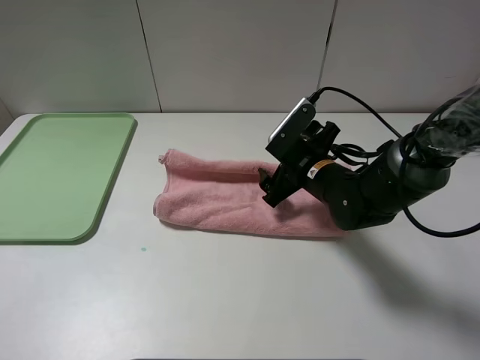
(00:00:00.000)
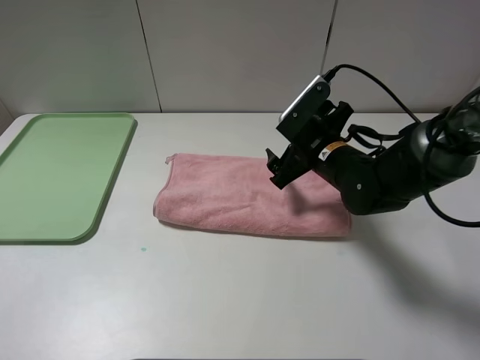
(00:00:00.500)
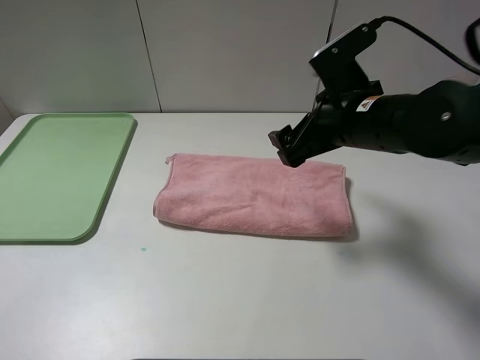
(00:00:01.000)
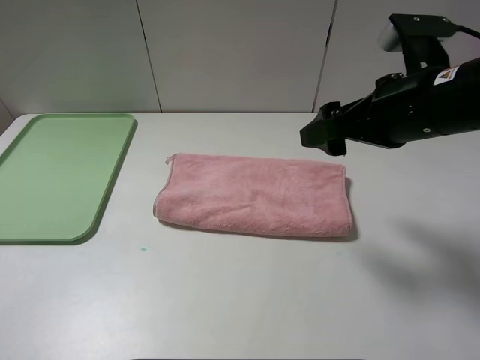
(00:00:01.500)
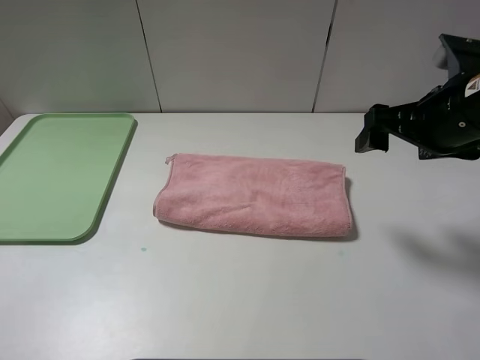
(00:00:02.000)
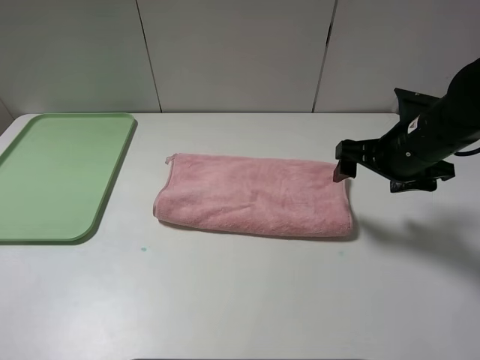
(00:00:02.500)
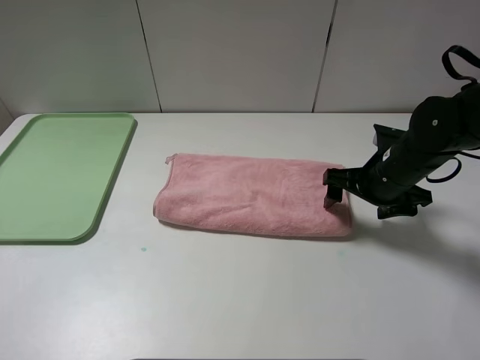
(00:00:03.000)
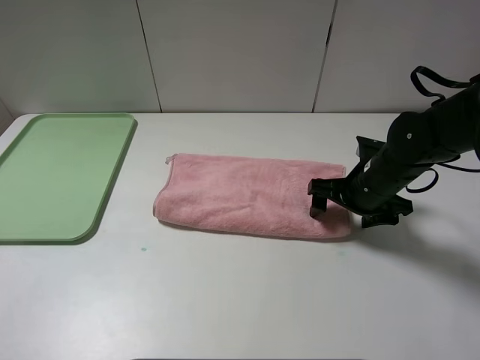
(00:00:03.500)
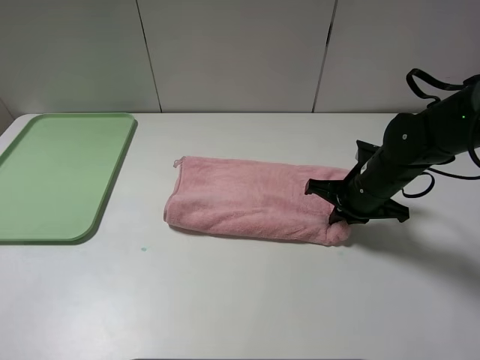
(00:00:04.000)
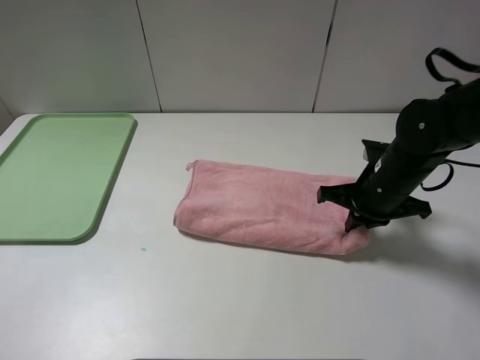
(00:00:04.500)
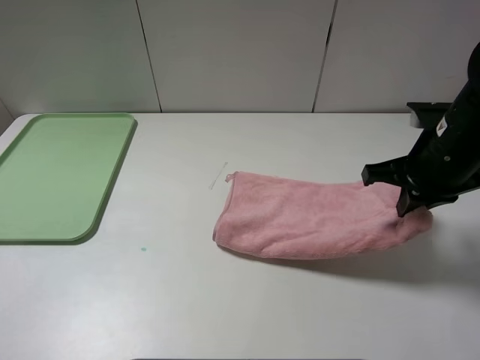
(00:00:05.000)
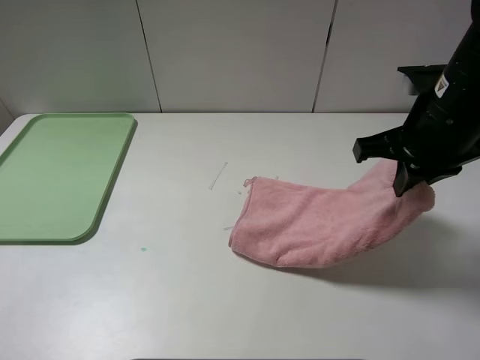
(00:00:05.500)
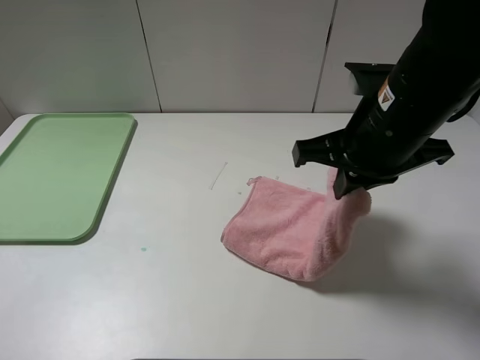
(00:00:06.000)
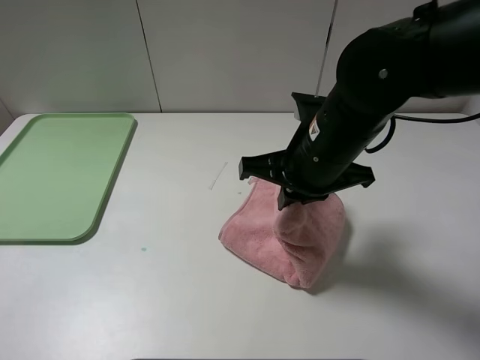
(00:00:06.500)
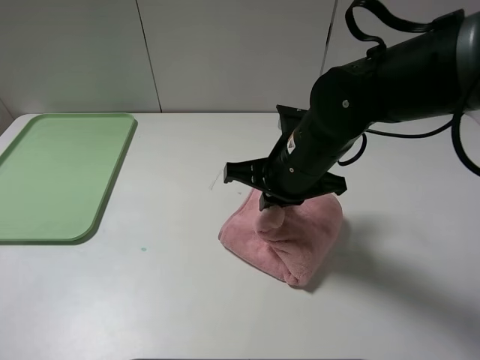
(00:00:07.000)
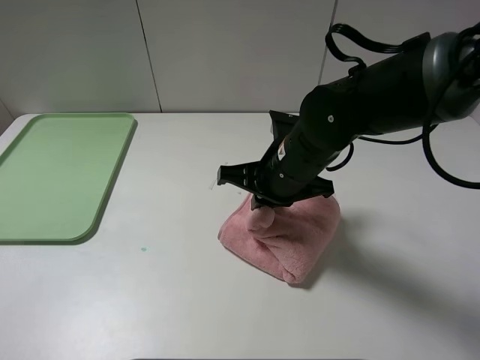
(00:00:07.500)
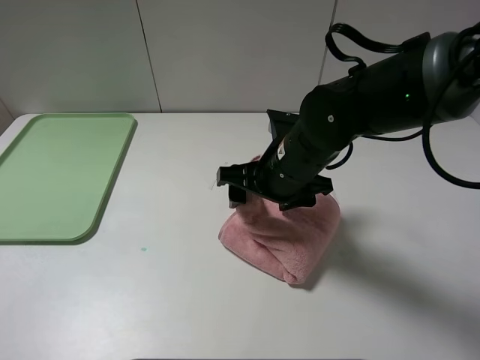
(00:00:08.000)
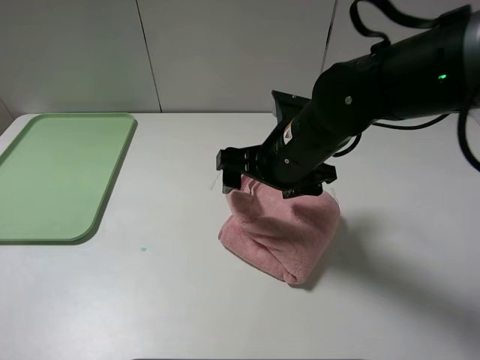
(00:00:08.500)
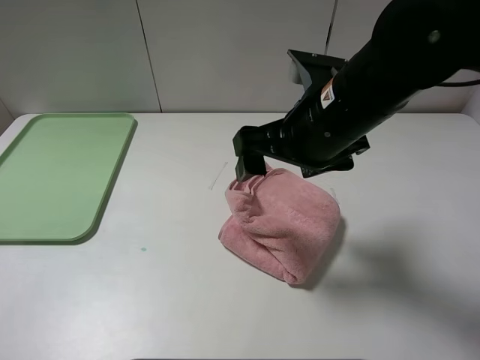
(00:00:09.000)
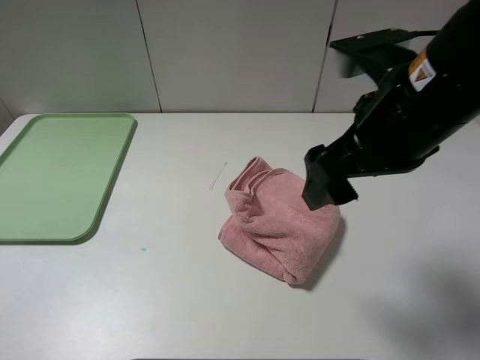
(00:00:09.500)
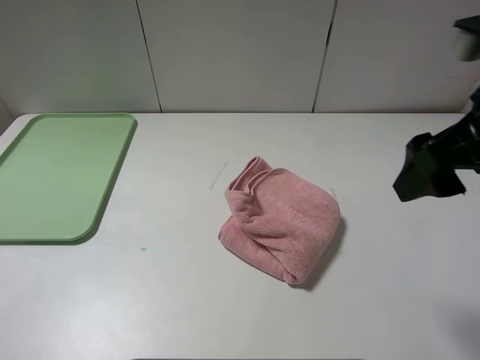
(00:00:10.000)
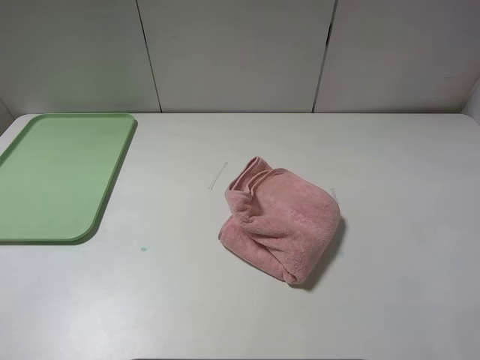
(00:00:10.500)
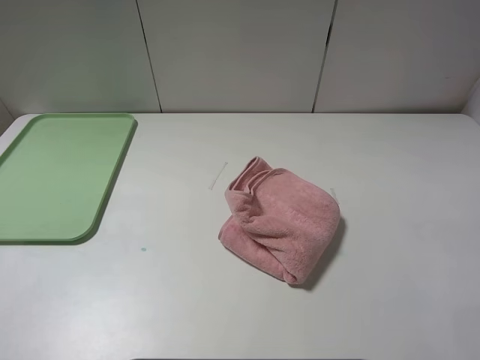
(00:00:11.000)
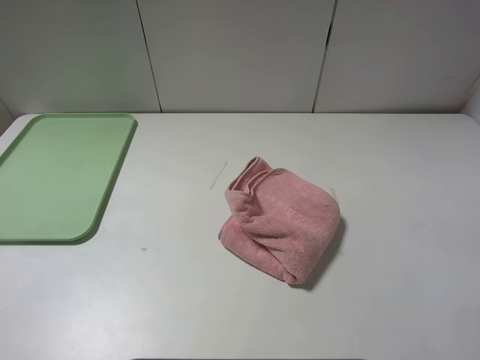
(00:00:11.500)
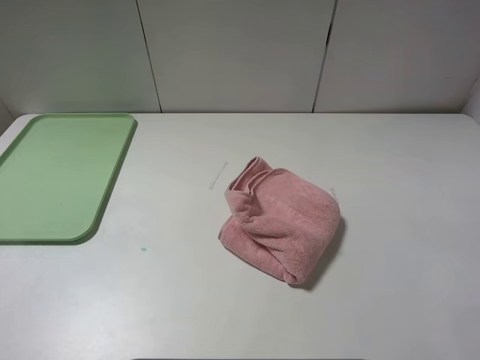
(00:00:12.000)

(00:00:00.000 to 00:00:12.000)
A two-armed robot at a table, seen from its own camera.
Step, 00:00:01.000 - 00:00:08.500: Fold the pink towel from right to left with right gripper.
00:00:00.000 - 00:00:02.000: The right gripper travels upward and to the right by roughly 20 cm.
00:00:02.000 - 00:00:04.000: The right gripper heads downward, covering approximately 15 cm, and closes its fingers.
00:00:04.000 - 00:00:06.000: The right gripper heads upward, backward and to the left, covering some 20 cm.
00:00:06.000 - 00:00:08.000: The right gripper heads downward and to the left, covering some 10 cm, and opens up.
00:00:08.000 - 00:00:10.000: The right gripper moves to the right, upward and backward, some 25 cm.
00:00:10.000 - 00:00:12.000: The right gripper travels backward and to the right by some 20 cm.

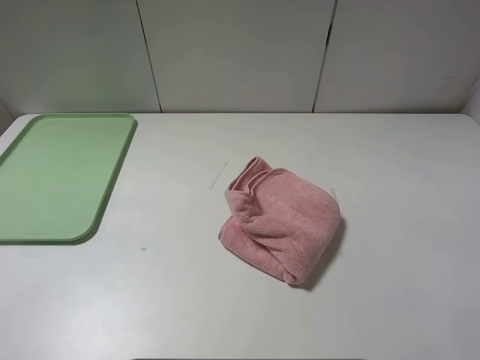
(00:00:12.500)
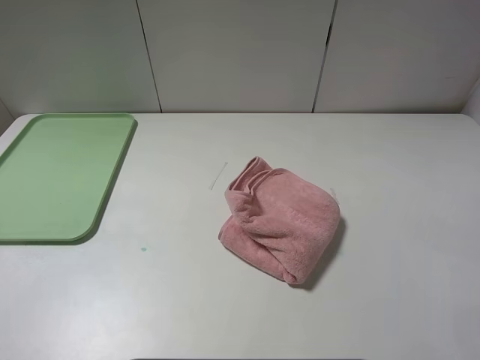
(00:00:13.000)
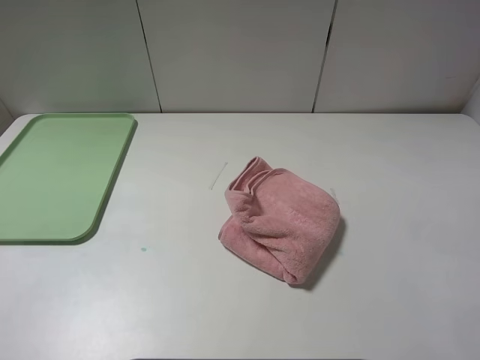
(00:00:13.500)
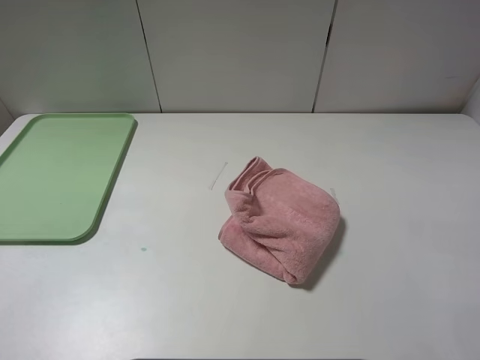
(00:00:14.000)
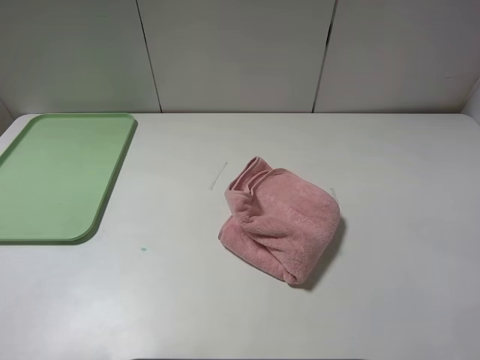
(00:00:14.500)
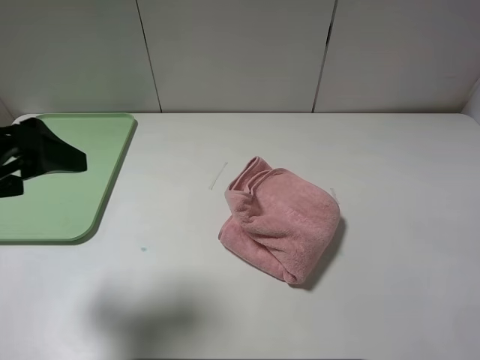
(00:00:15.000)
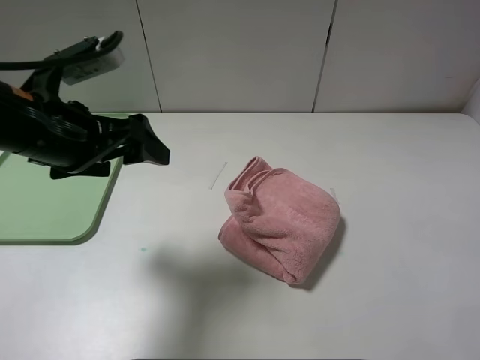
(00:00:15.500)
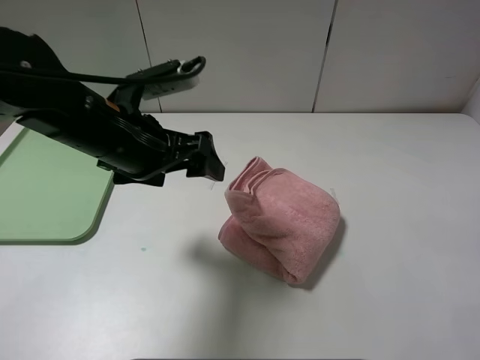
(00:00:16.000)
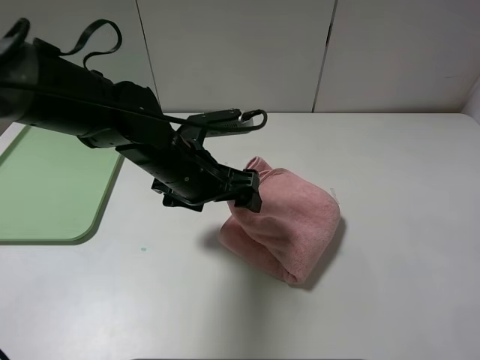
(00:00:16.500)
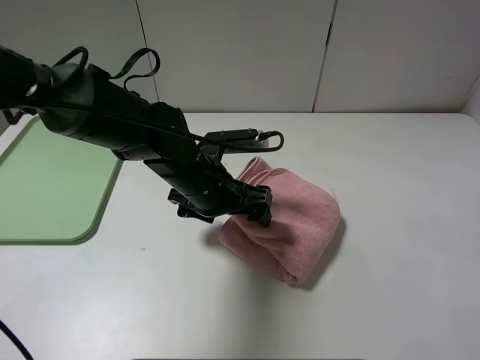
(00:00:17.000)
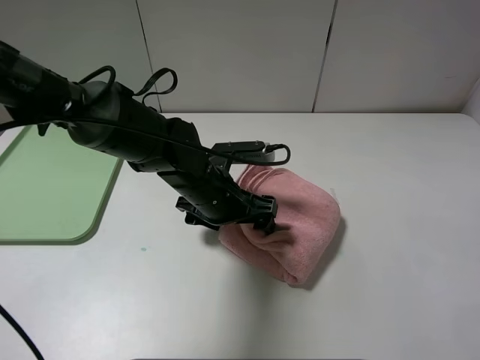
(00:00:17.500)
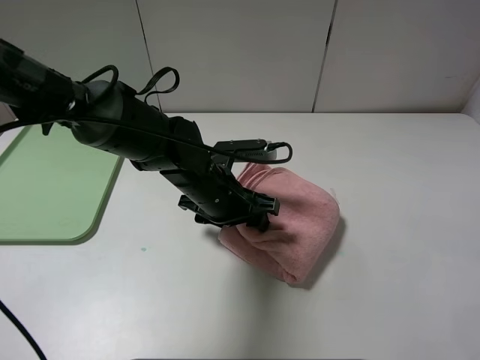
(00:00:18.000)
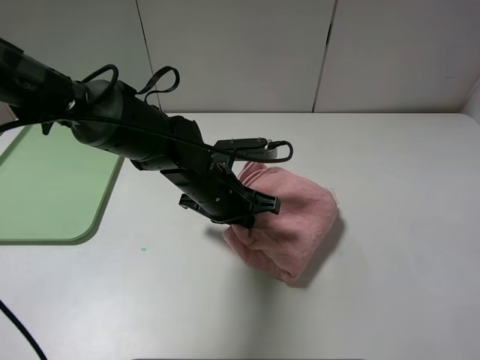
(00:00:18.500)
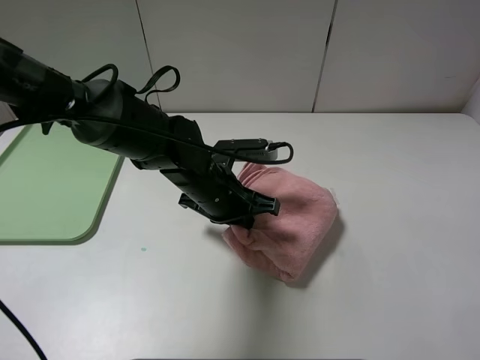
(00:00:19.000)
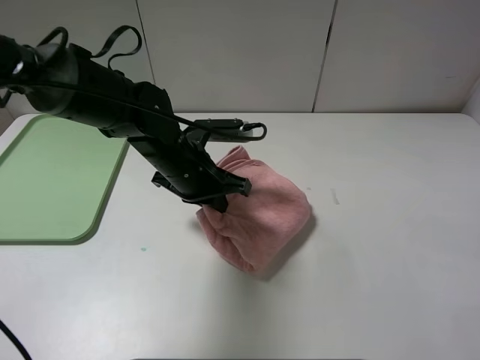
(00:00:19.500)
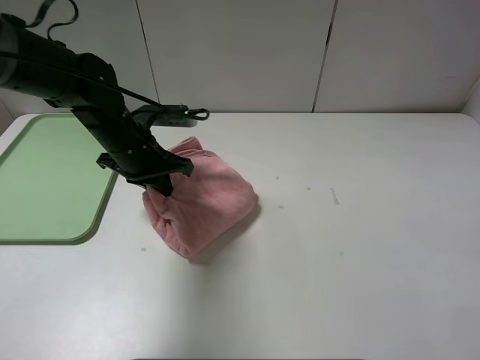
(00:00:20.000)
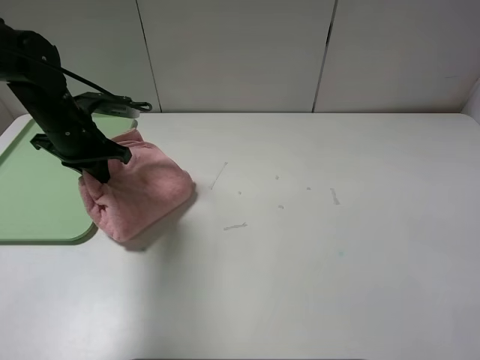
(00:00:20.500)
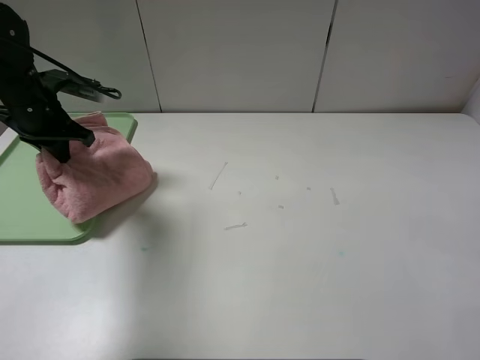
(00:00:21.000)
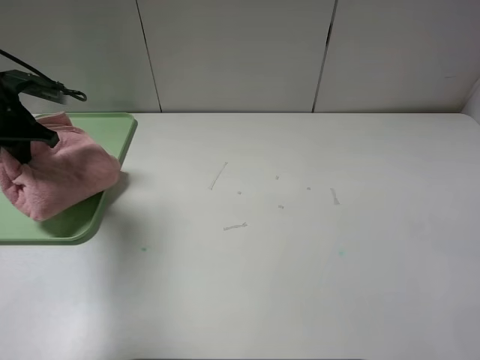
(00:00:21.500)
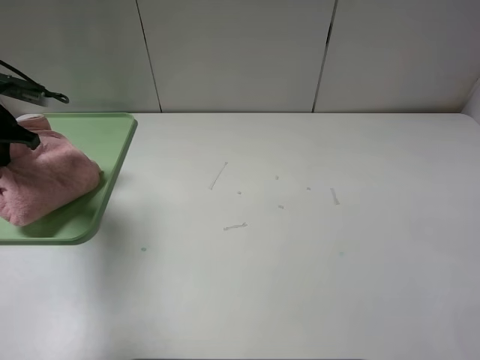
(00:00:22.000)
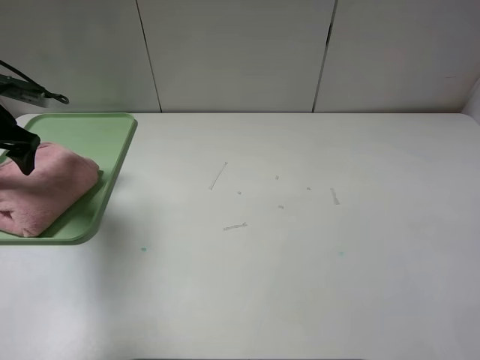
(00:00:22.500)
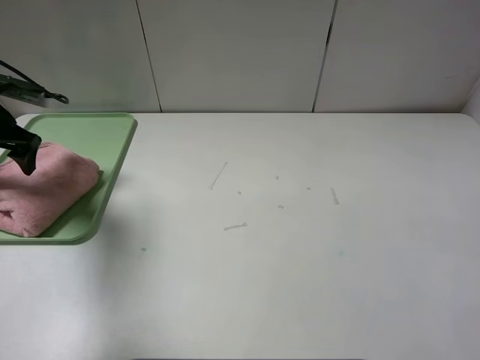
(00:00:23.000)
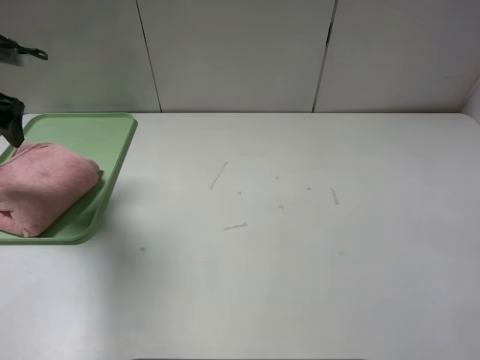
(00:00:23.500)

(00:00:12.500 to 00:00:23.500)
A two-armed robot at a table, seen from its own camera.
Step, 00:00:12.500 - 00:00:22.000: Place the folded pink towel on the tray with the left gripper.
00:00:14.500 - 00:00:16.000: The left gripper shifts approximately 25 cm forward, to the right and downward.
00:00:16.000 - 00:00:18.000: The left gripper moves downward and to the right, approximately 15 cm, and closes.
00:00:18.000 - 00:00:20.000: The left gripper heads to the left and forward, covering some 15 cm, and closes its fingers.
00:00:20.000 - 00:00:21.500: The left gripper travels to the left by approximately 20 cm.
00:00:21.500 - 00:00:23.500: The left gripper goes about 5 cm upward, and opens.

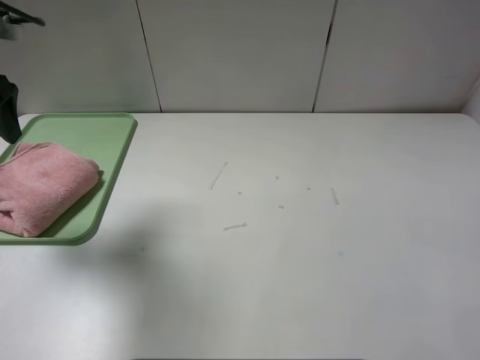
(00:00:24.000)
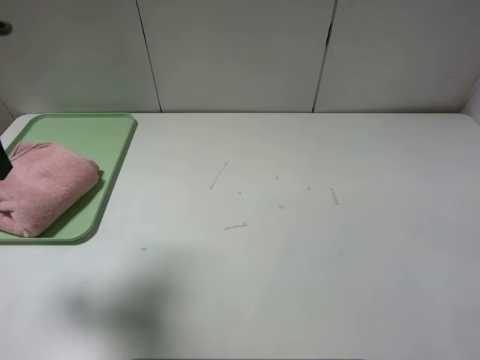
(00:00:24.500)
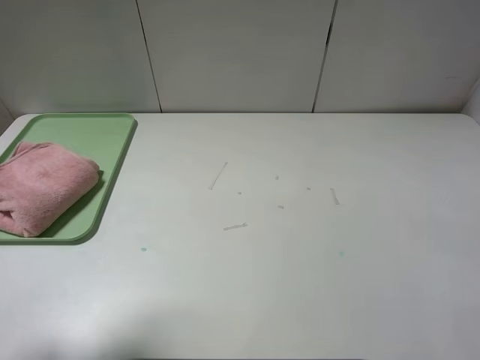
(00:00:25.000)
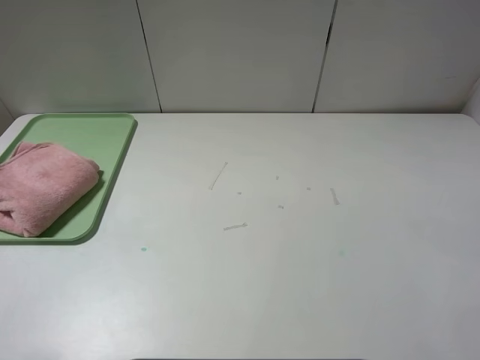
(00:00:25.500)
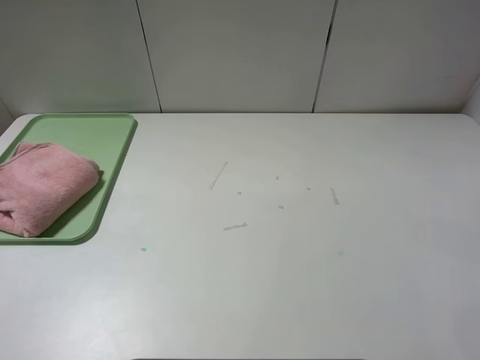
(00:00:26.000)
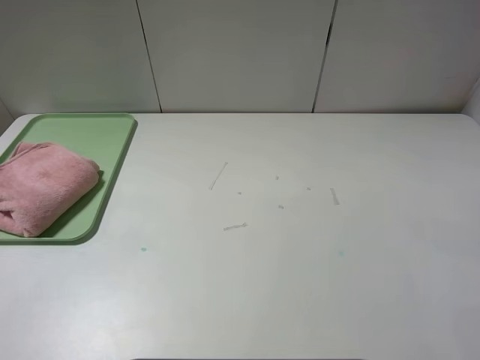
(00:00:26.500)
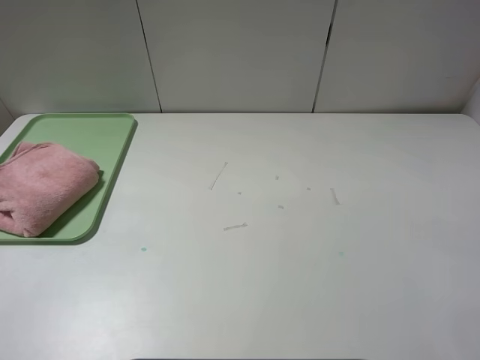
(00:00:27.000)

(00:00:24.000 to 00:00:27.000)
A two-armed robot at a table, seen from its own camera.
00:00:24.000 - 00:00:25.500: The left gripper shifts about 25 cm backward.
